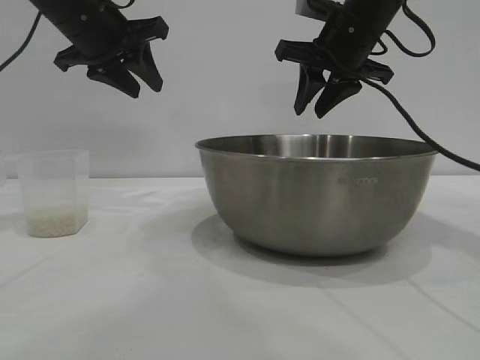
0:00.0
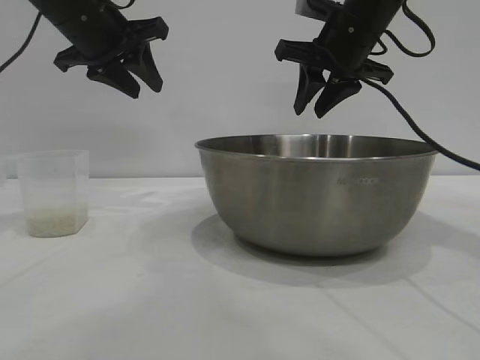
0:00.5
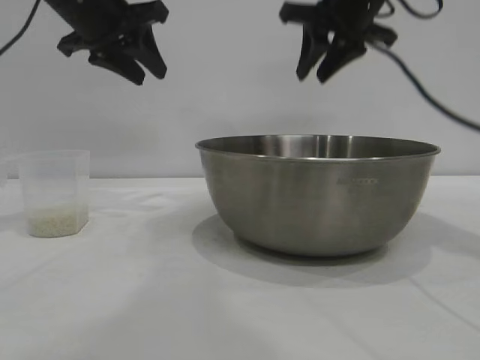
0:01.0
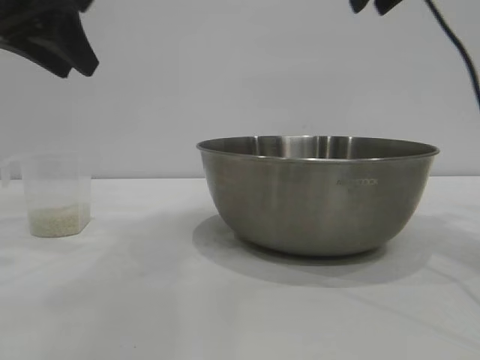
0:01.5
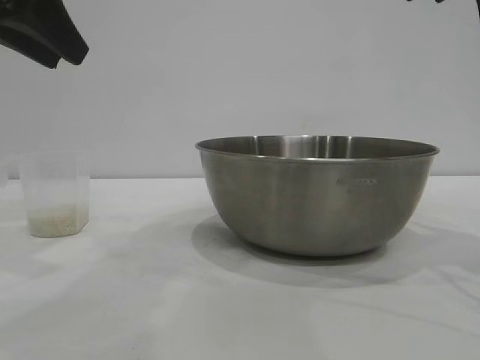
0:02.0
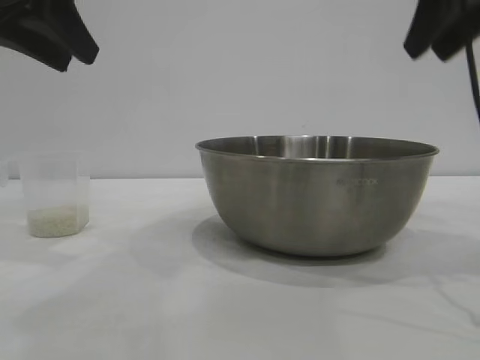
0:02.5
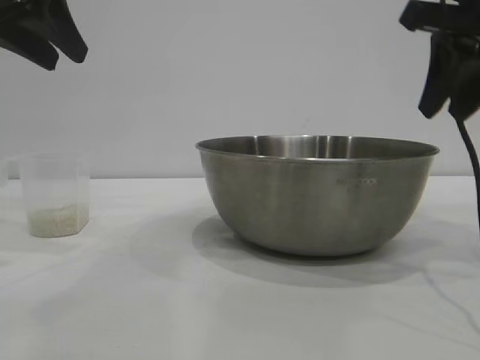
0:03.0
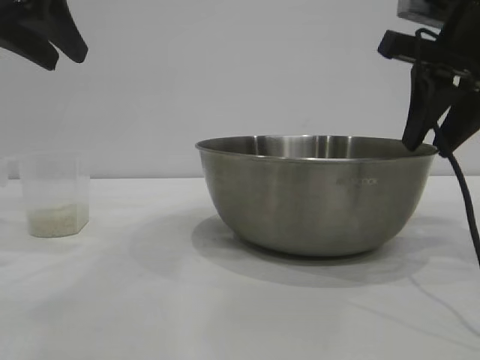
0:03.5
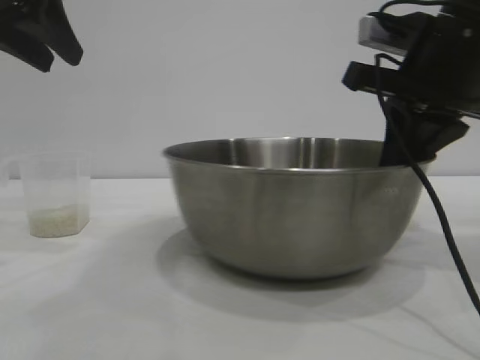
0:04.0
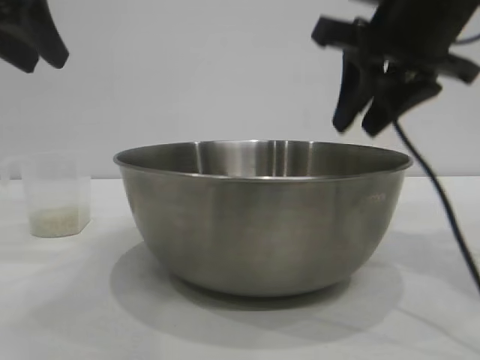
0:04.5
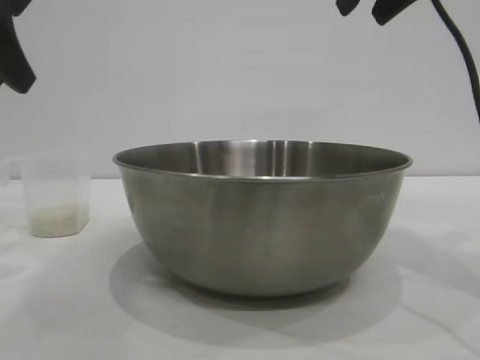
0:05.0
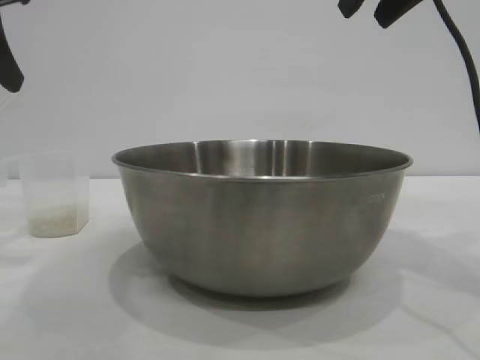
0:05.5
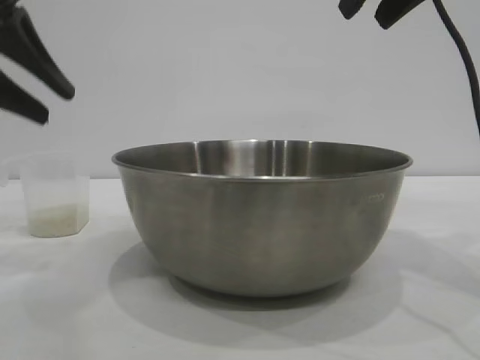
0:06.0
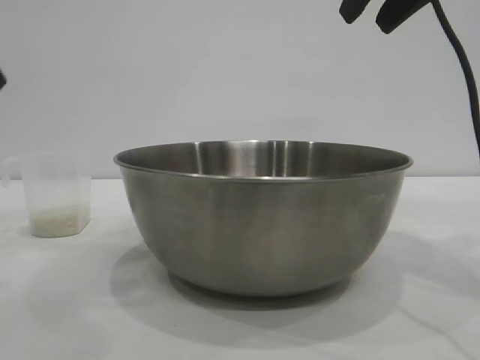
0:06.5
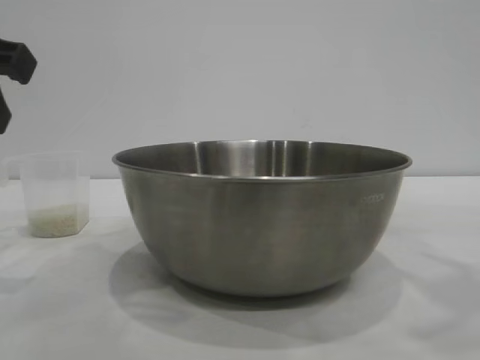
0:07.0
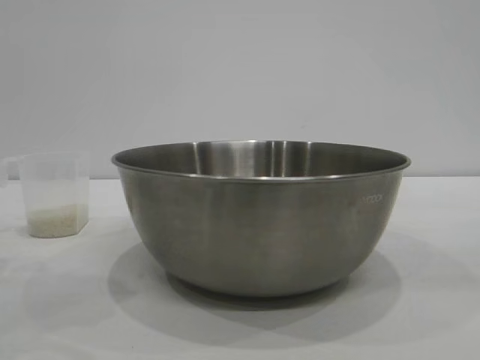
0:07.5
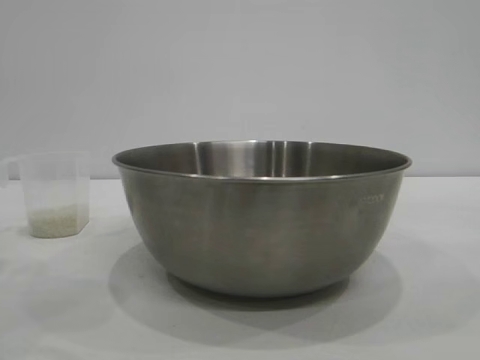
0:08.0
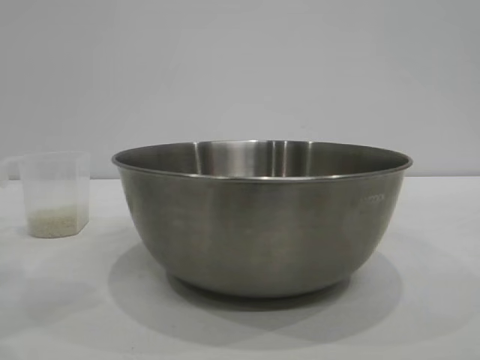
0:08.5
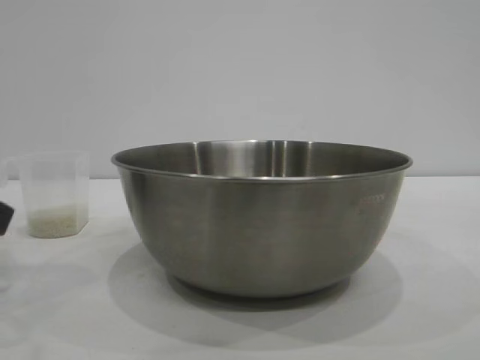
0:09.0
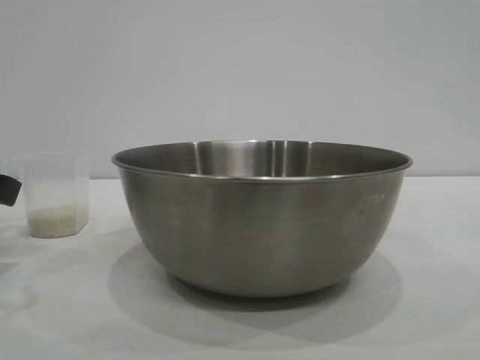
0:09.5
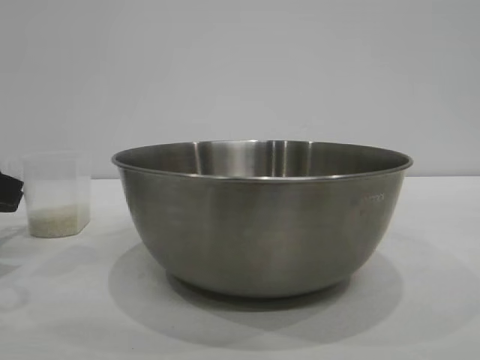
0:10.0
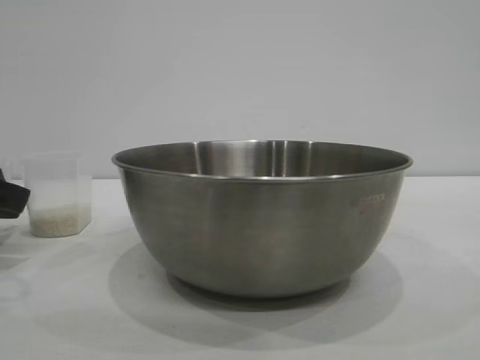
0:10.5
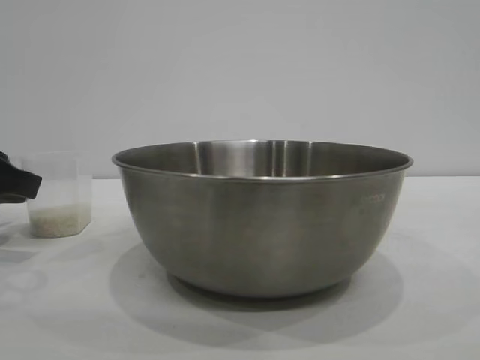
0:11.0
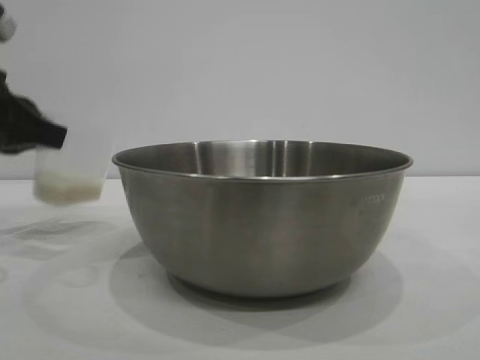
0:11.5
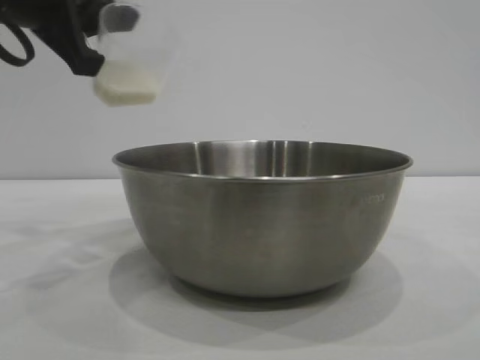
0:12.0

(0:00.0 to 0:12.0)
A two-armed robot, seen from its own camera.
Task of the whole recording: the right gripper grasp the rice container and place it in the center of the table, the left gripper grasp the rice scoop and pour the rice into the rice container.
Step, 0:00.0 - 0:04.5: Move the bowl to the center of view with the right gripper.
Step, 0:05.0 - 0:11.5: Pick up the cup with rice in it with the left gripper.

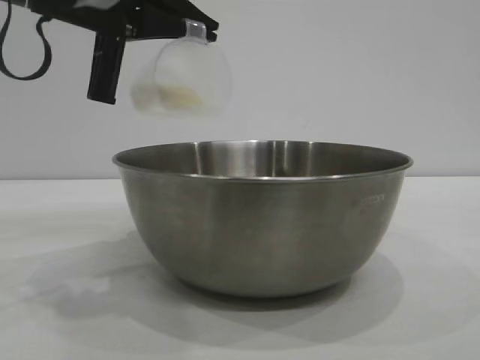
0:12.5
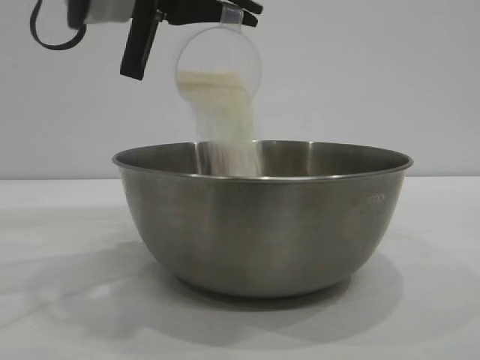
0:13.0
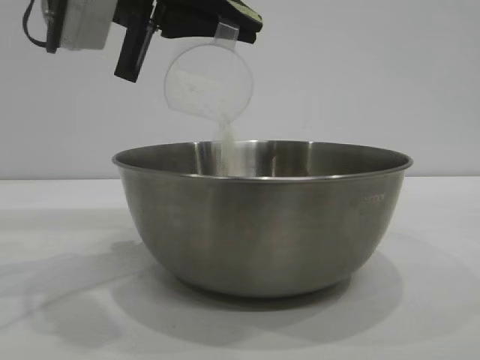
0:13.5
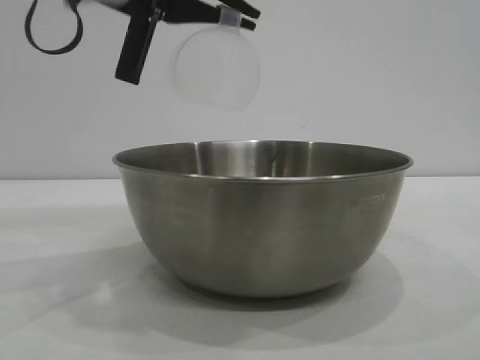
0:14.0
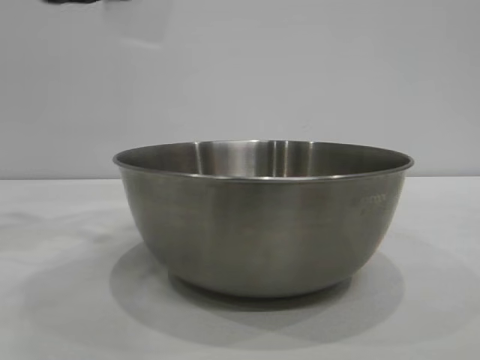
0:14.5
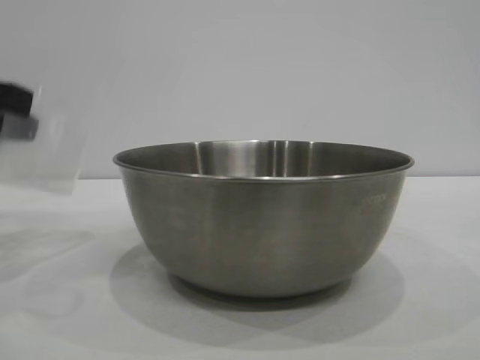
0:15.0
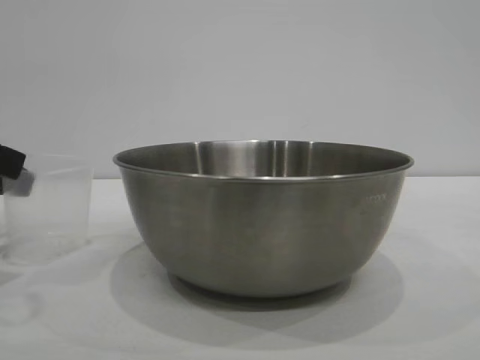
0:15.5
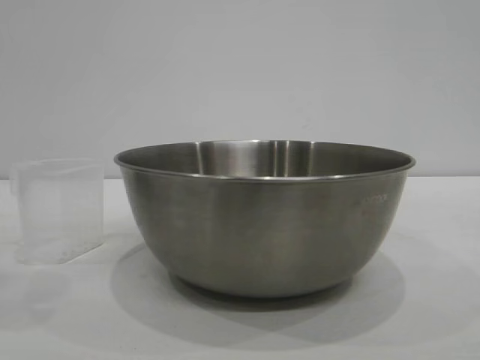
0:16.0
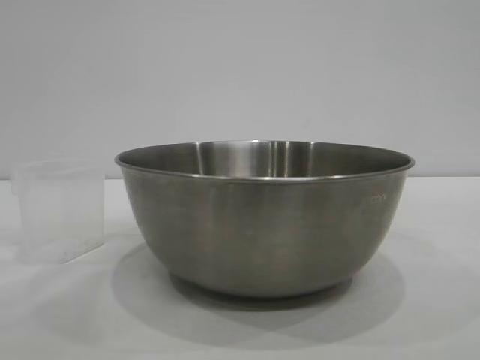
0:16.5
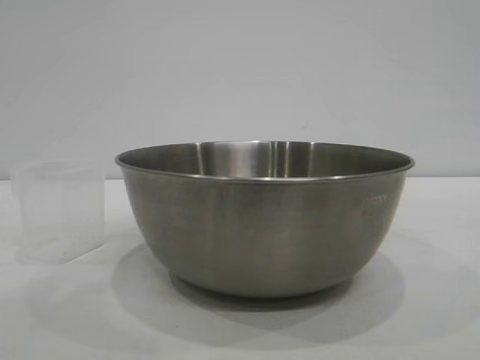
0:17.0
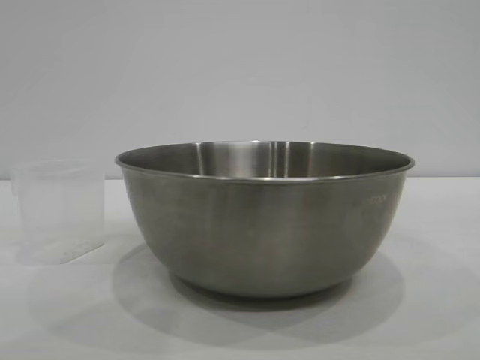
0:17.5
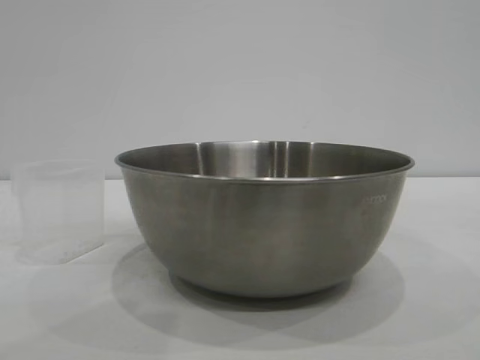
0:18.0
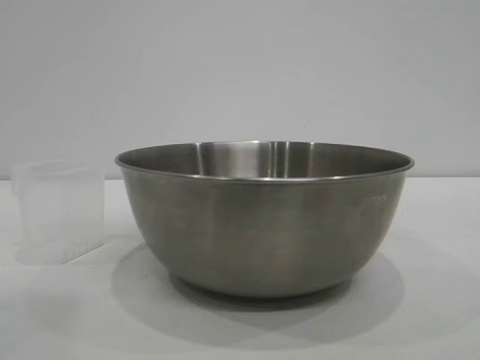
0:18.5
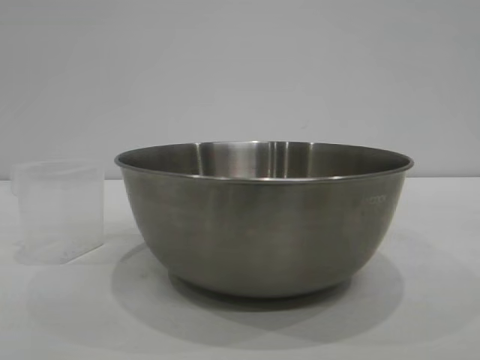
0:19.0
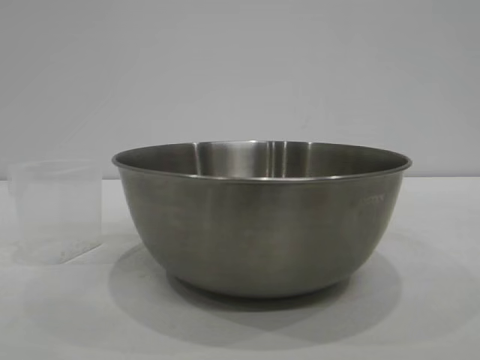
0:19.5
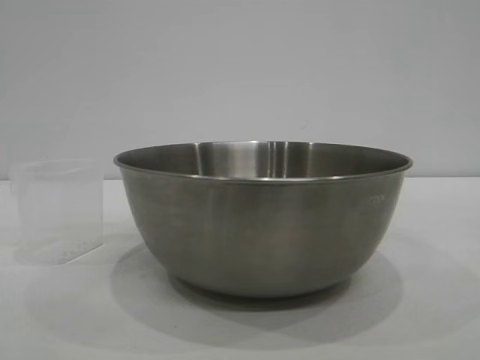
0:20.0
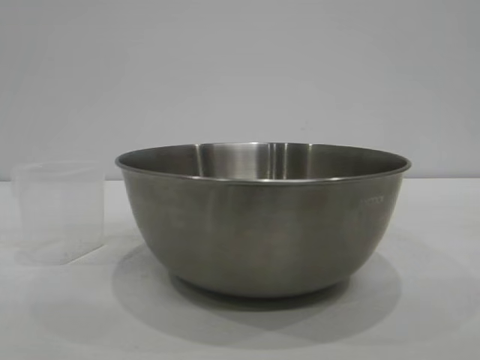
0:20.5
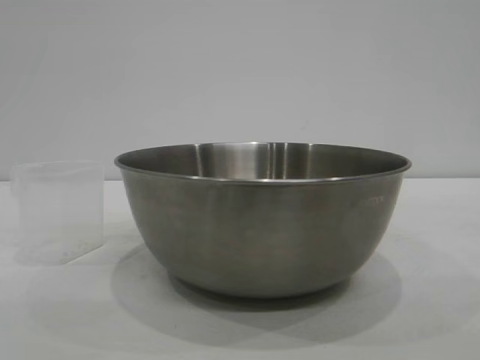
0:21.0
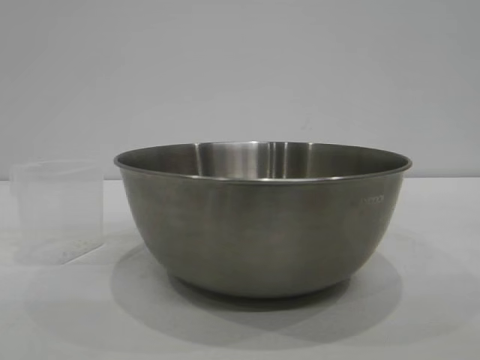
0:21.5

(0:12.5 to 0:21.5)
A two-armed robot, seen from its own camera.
Task of the whole recording: the right gripper grasp the rice container and place it in the center of the table, the left gripper grasp the rice scoop and pour the rice into the rice container.
Step, 0:14.0 - 0:15.5: Place the cup on the table with the left gripper.

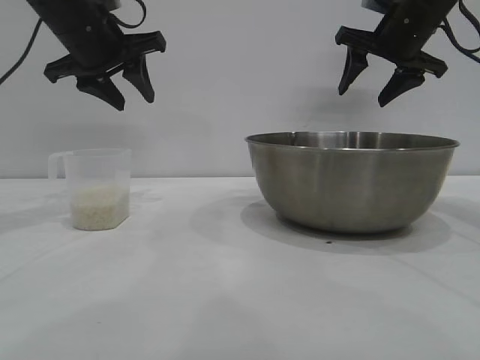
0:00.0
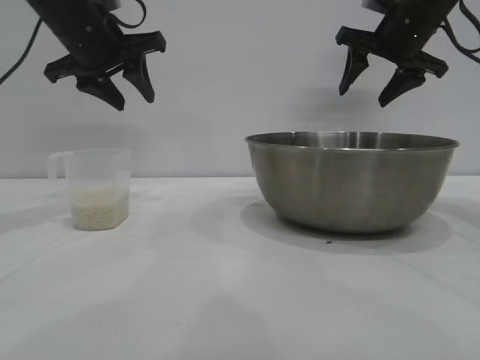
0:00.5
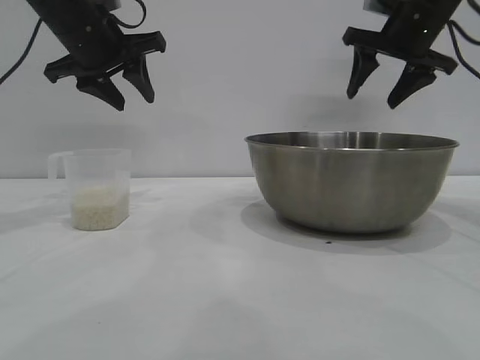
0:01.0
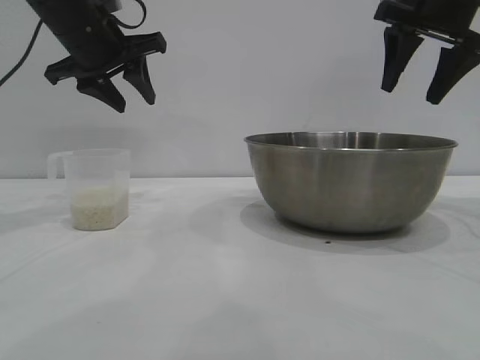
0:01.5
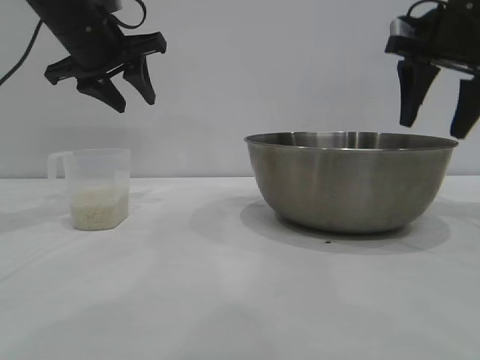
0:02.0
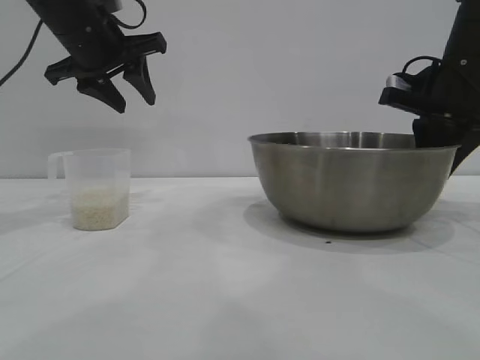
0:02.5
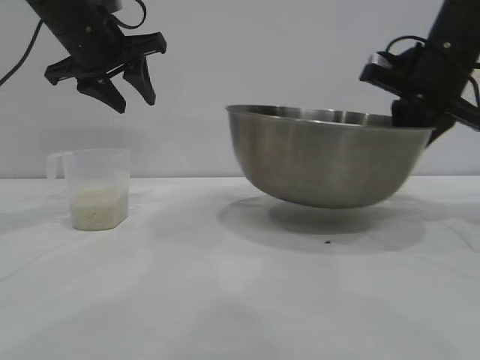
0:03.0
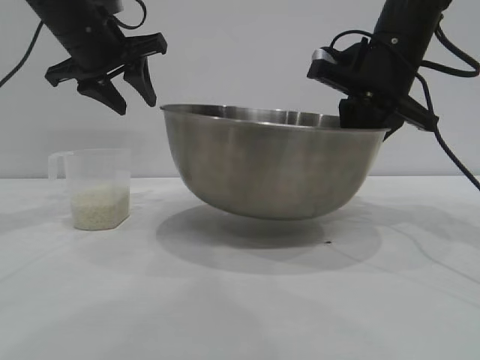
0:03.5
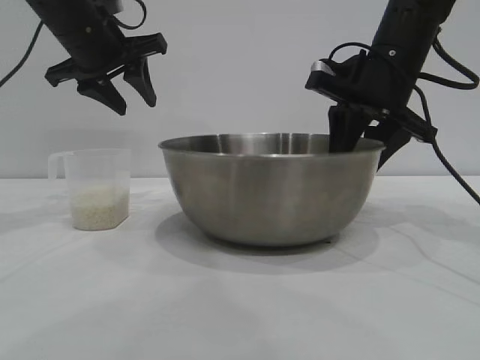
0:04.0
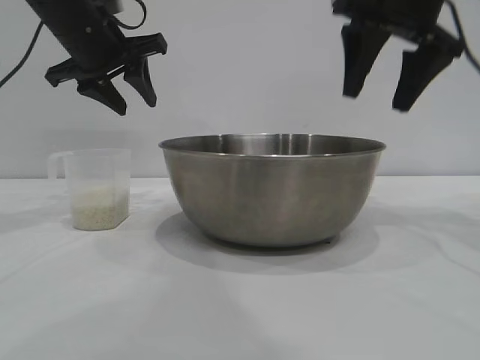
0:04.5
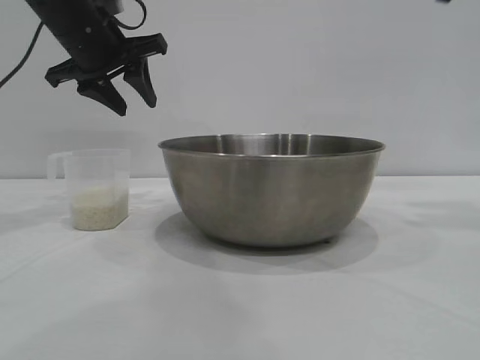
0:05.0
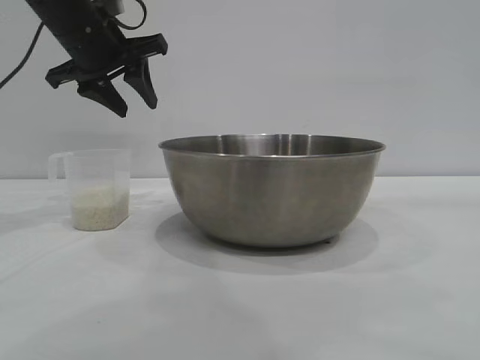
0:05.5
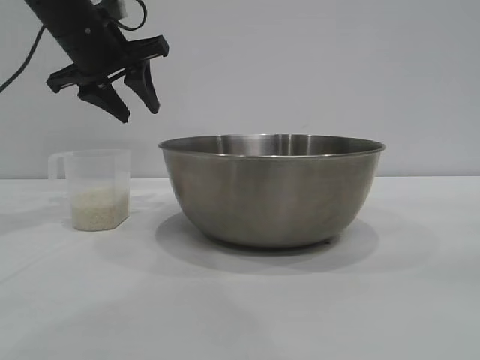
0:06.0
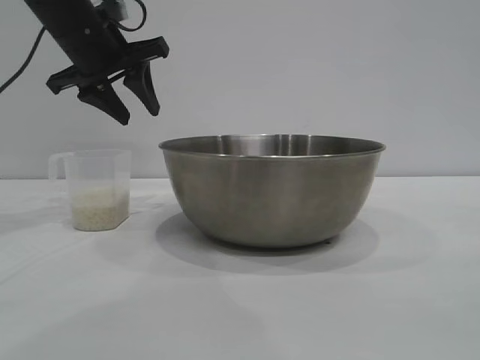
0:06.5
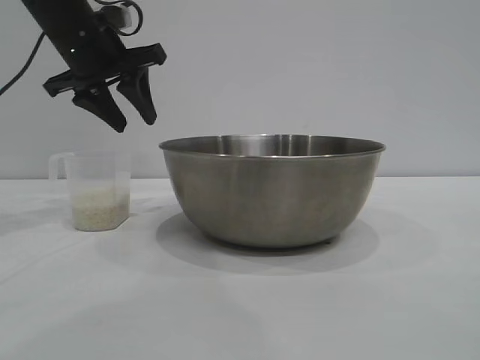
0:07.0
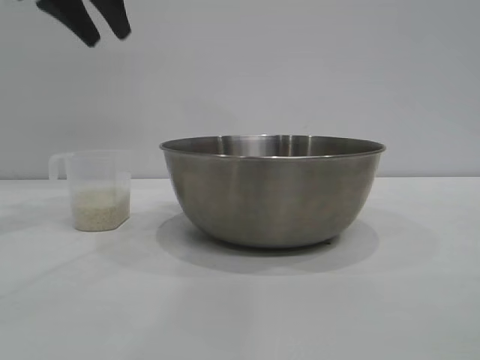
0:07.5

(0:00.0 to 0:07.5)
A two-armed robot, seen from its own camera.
Task of the whole recording: the right gripper grasp the rice container and place it in the center of the table, the left gripper grasp the rice scoop and pour the rice into the rice container.
Step, 0:00.0 - 0:03.0: Pick up the bowl with the right gripper.
Step, 0:03.5 - 0:04.5: Place the bowl in the center of view with the right gripper.
